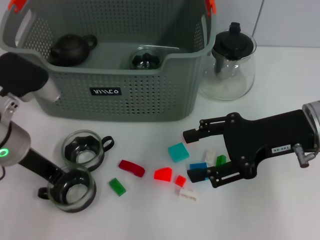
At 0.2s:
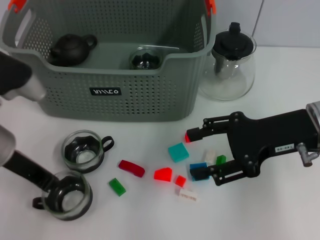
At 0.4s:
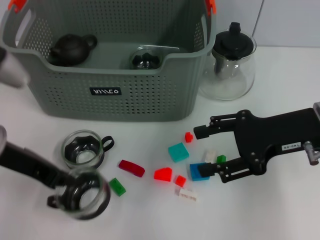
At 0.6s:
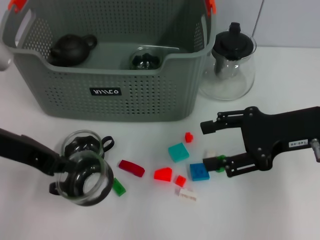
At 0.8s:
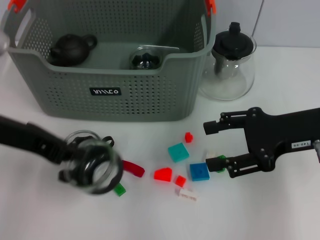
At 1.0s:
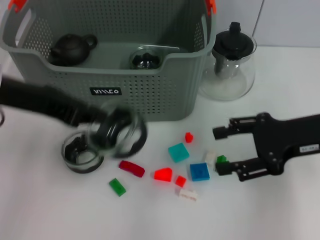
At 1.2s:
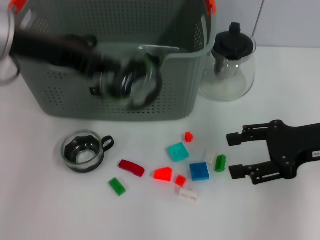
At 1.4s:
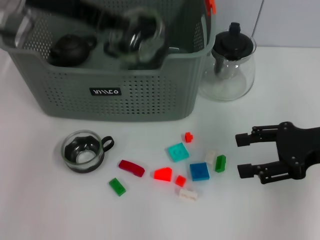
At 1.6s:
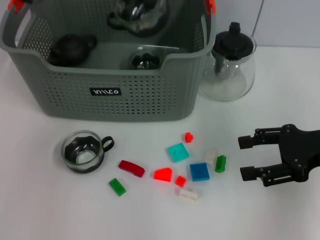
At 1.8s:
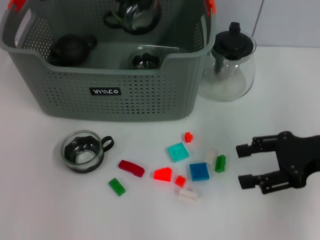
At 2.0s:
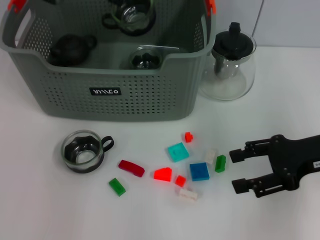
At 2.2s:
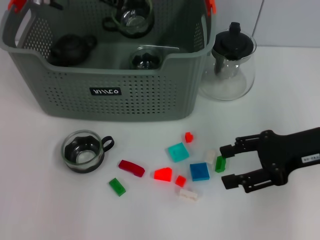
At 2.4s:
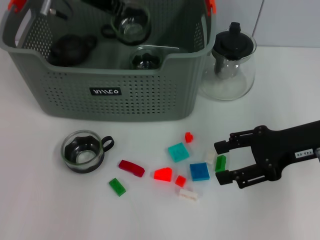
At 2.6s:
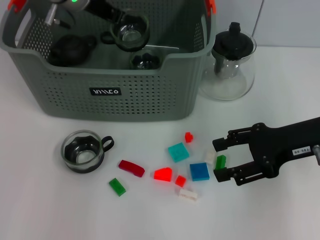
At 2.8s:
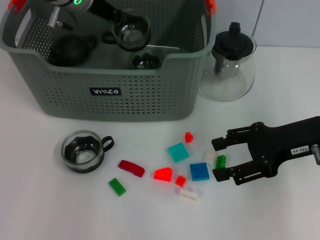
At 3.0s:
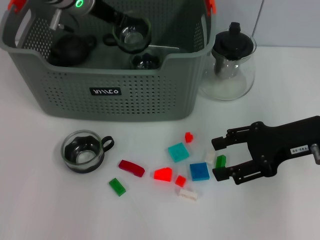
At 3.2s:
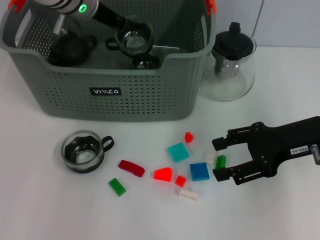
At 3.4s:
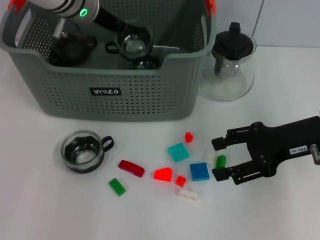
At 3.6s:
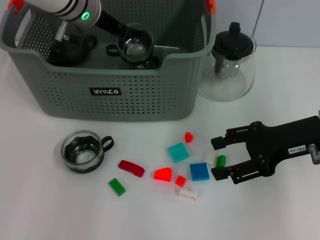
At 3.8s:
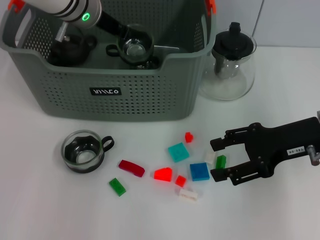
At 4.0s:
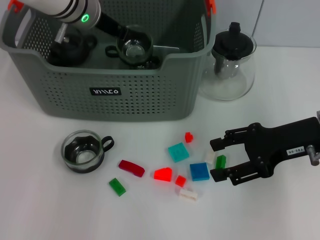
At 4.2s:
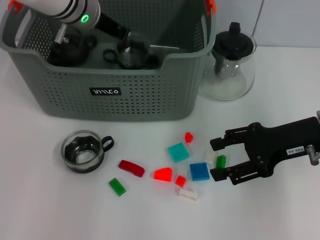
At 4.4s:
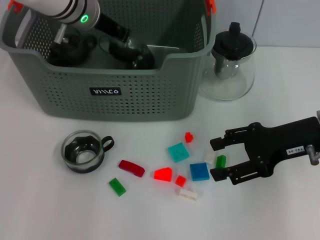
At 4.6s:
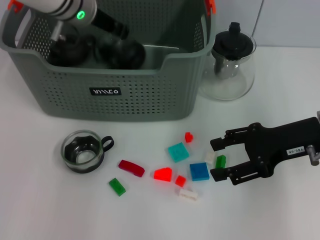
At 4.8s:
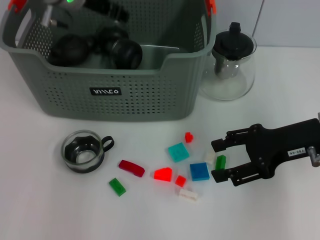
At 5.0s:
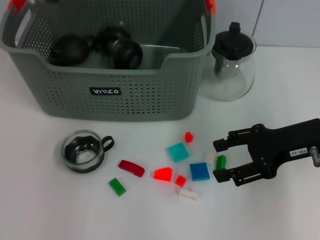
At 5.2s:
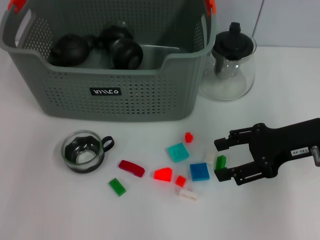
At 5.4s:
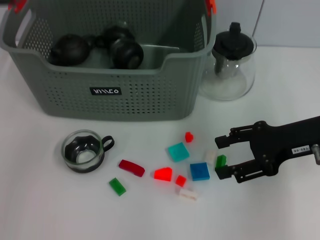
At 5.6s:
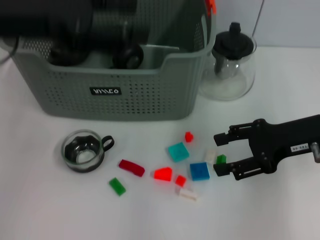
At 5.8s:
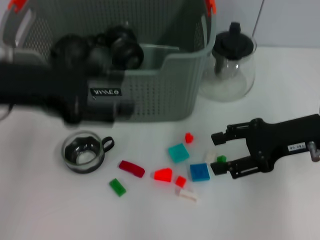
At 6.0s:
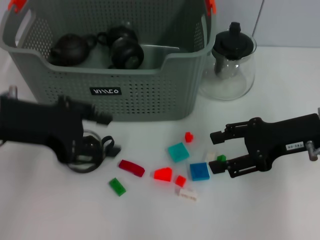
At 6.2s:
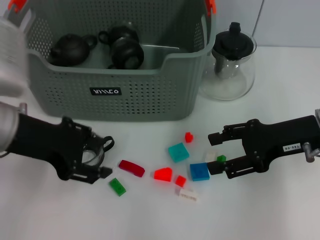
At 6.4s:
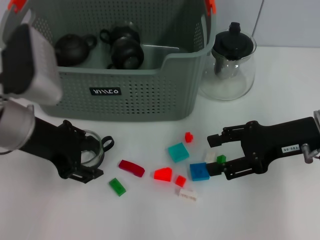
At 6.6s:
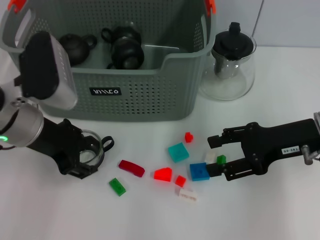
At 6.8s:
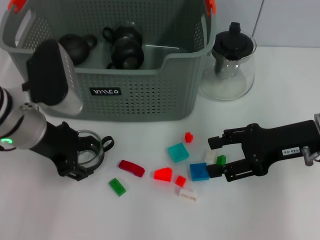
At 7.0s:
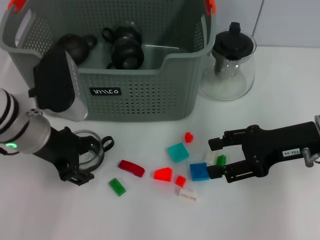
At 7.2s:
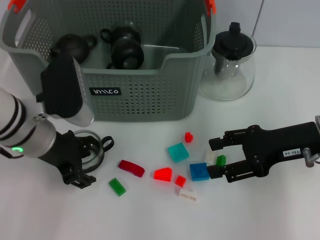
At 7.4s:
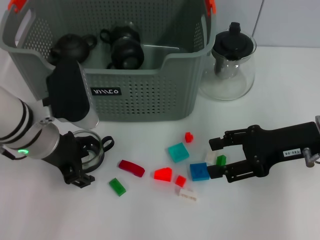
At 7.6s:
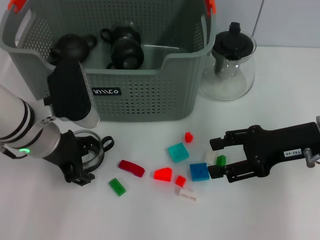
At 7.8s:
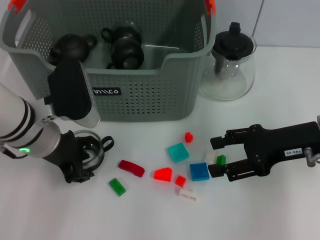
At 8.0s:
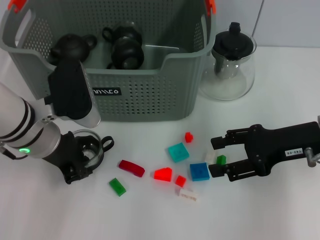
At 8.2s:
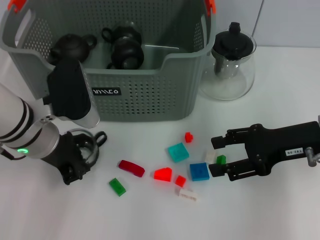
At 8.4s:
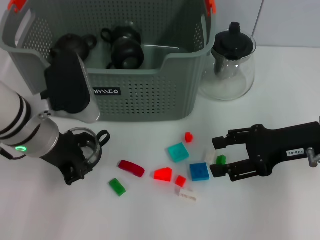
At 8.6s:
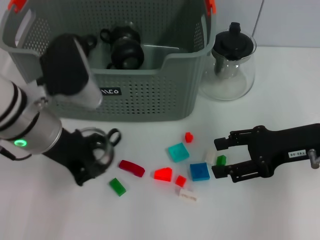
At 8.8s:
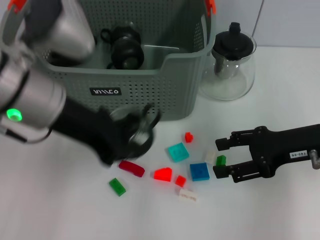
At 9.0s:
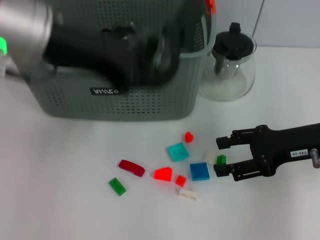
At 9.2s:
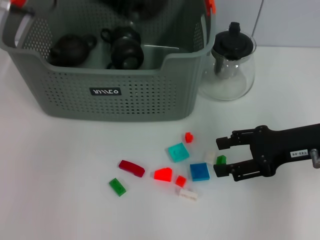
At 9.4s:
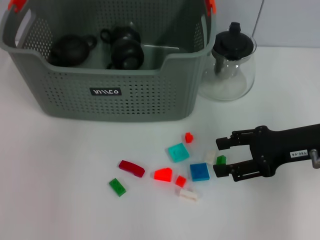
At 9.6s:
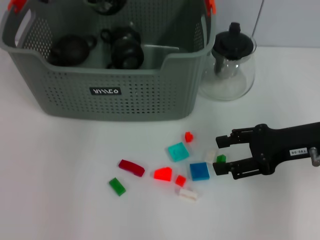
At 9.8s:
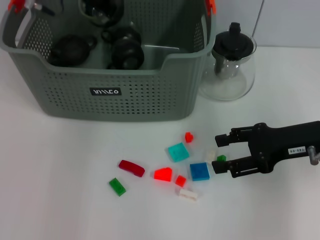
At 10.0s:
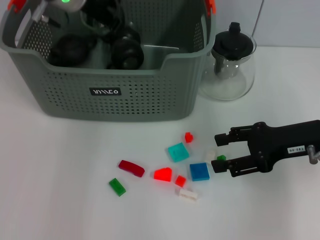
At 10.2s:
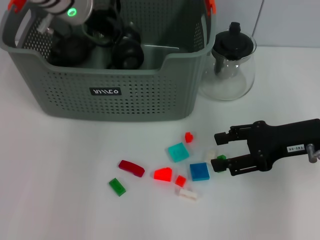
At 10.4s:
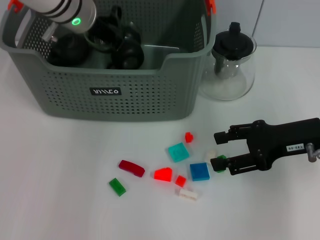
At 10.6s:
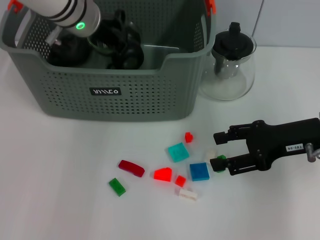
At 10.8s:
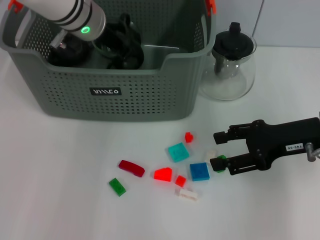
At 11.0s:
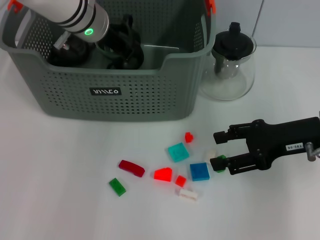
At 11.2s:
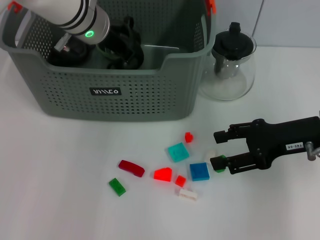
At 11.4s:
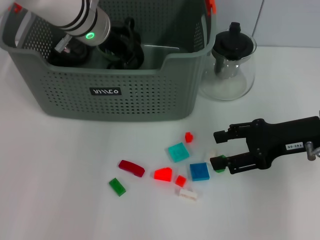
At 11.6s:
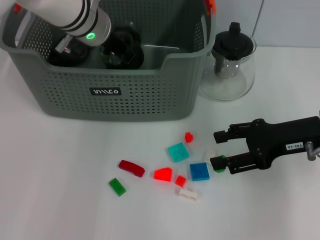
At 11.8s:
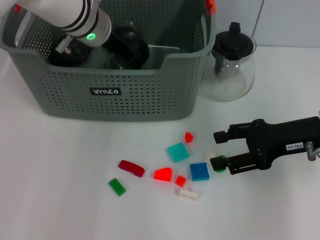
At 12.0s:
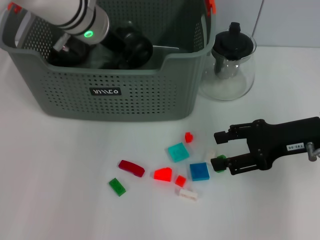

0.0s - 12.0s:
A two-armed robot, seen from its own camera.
Task of the whole recording: pick up the teacup on the table and place it into the storage bin, pick up the block on the table and place it into the storage bin.
Step, 0.0s - 4.4s: Place the cup in the storage box with left gripper.
Step, 4.8s - 8.2s: Grasp the cup with left gripper.
Step, 8.4s - 11.8s: Place the cup in the storage box with left gripper.
0.0s - 1.6s: The right gripper heads to the right, covering some 10 cm; the left gripper travels upward and forward by about 20 cm.
1.6s - 3.0s: The left gripper heads downward and forward, covering some 10 cm.
3.0s - 4.4s: There are only small adjustments of the grippers.
4.4s - 6.0s: The left gripper is displaced backward and to the left by approximately 20 cm, and opens up.
6.0s - 7.6s: The left gripper heads downward and to the right, covering approximately 10 cm.
7.6s - 9.0s: The left gripper heads upward, covering some 15 cm, and closes.
9.0s - 10.4s: The left gripper is displaced forward and downward by about 15 cm.
10.4s - 12.0s: The left gripper opens its fingers.

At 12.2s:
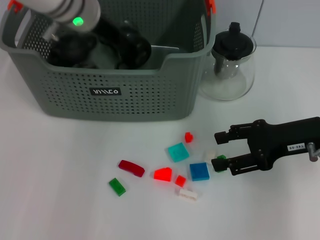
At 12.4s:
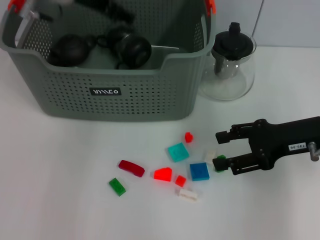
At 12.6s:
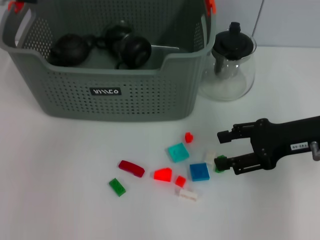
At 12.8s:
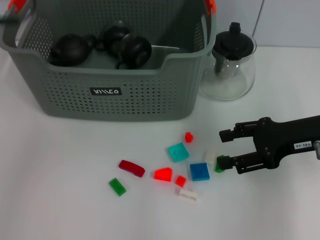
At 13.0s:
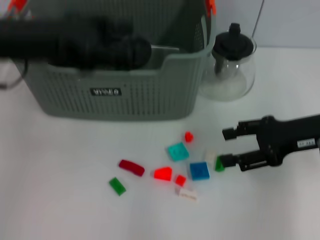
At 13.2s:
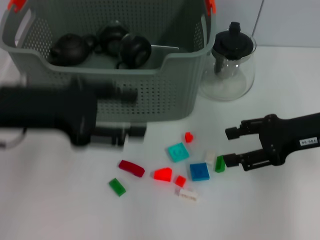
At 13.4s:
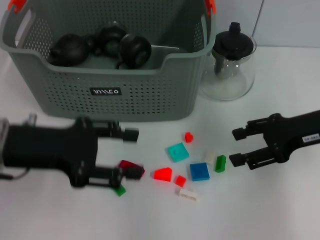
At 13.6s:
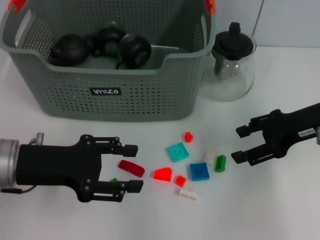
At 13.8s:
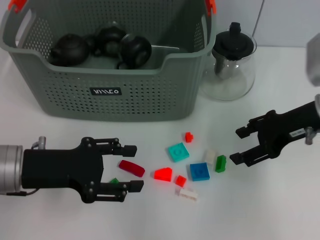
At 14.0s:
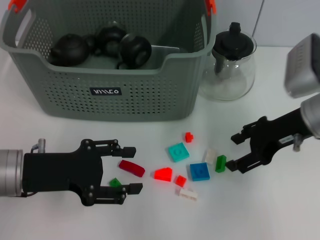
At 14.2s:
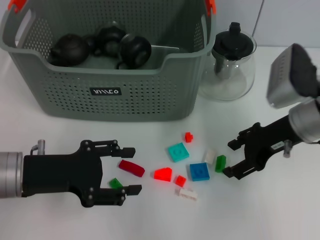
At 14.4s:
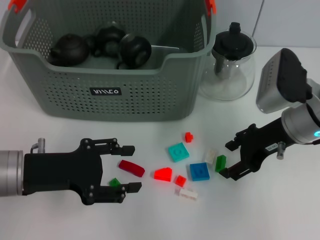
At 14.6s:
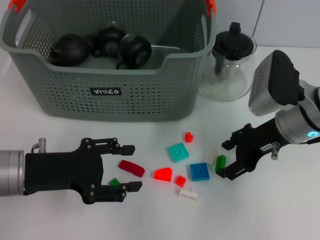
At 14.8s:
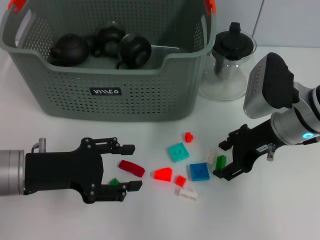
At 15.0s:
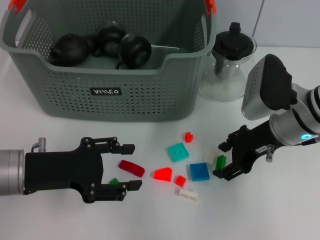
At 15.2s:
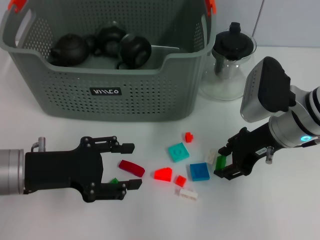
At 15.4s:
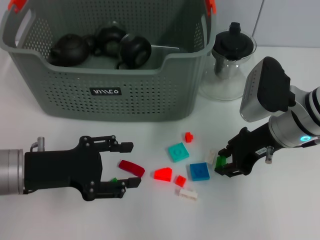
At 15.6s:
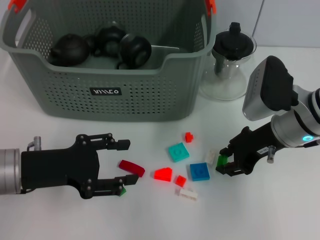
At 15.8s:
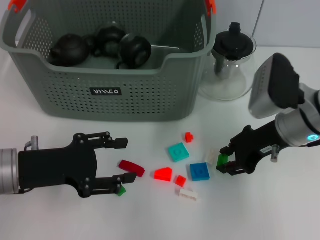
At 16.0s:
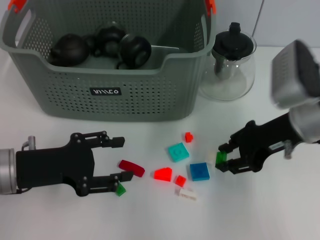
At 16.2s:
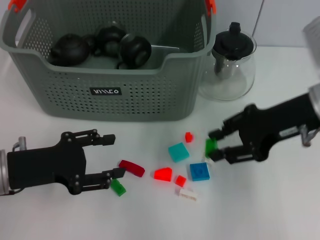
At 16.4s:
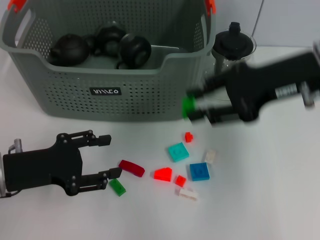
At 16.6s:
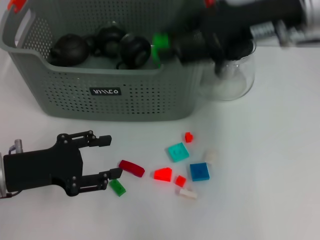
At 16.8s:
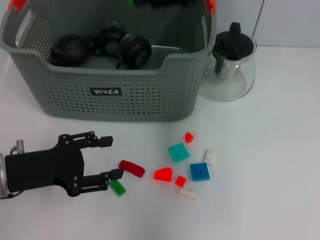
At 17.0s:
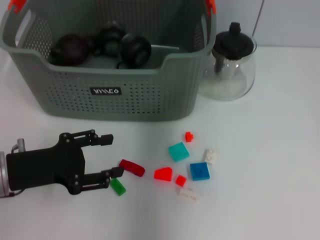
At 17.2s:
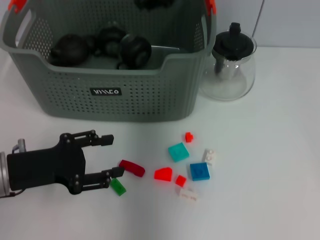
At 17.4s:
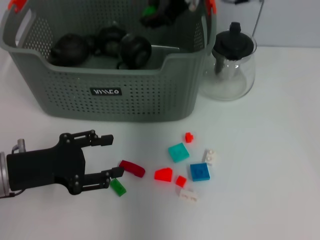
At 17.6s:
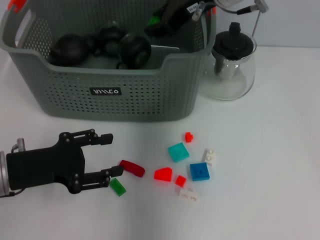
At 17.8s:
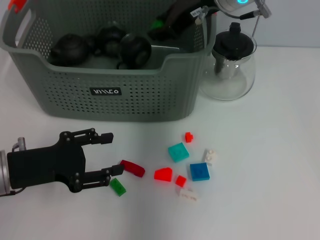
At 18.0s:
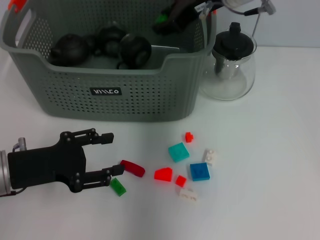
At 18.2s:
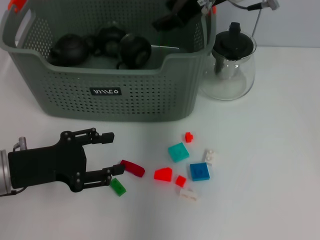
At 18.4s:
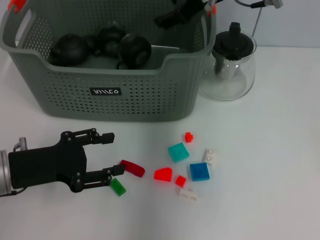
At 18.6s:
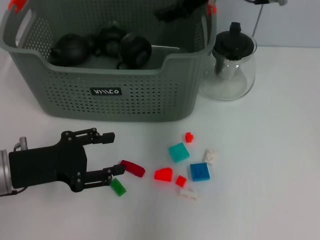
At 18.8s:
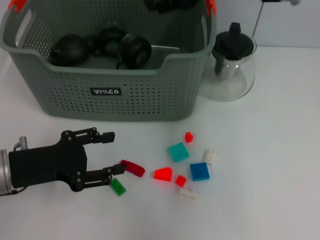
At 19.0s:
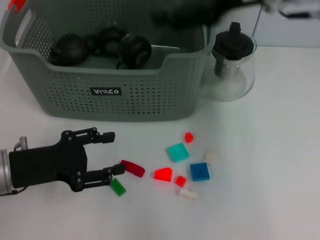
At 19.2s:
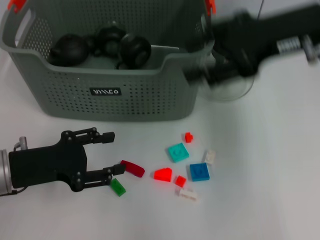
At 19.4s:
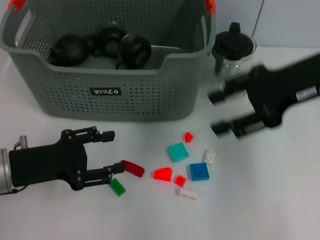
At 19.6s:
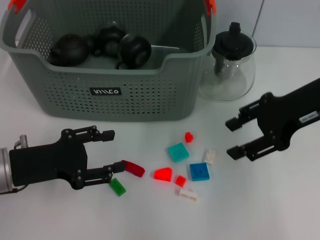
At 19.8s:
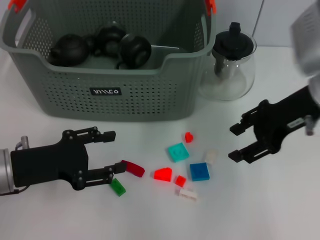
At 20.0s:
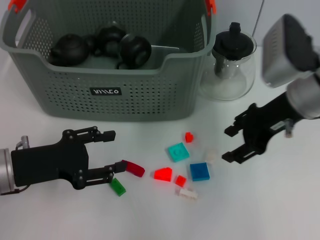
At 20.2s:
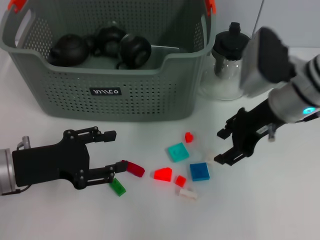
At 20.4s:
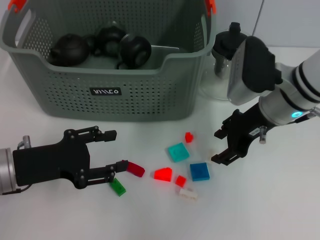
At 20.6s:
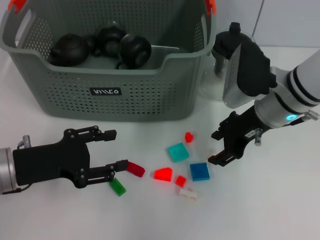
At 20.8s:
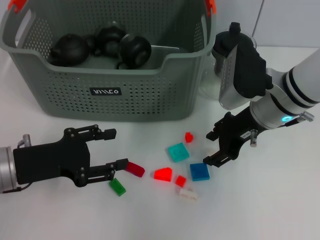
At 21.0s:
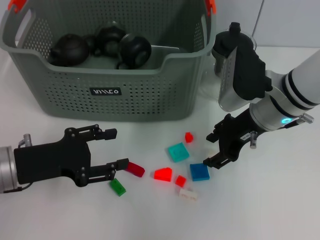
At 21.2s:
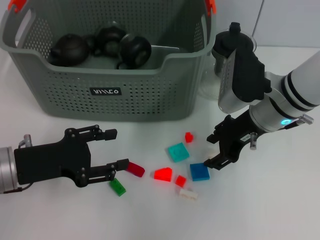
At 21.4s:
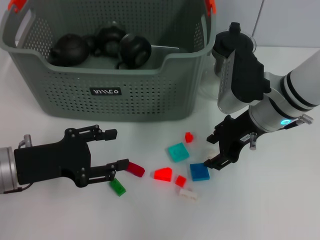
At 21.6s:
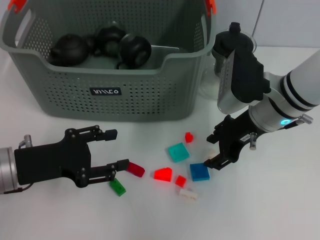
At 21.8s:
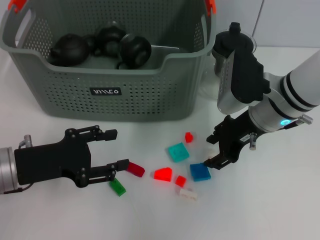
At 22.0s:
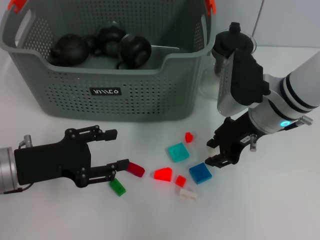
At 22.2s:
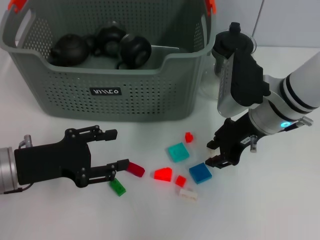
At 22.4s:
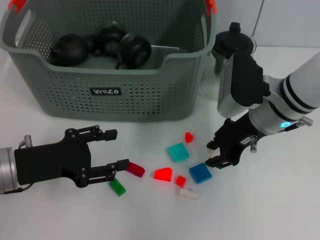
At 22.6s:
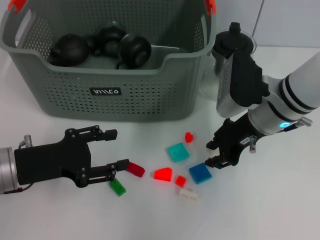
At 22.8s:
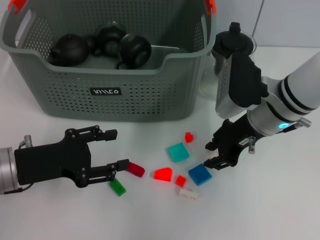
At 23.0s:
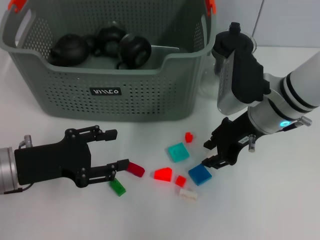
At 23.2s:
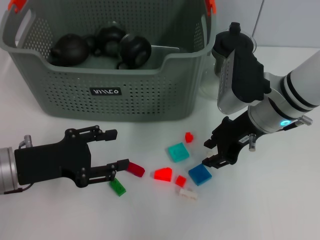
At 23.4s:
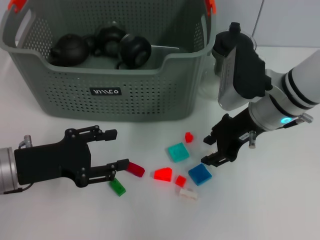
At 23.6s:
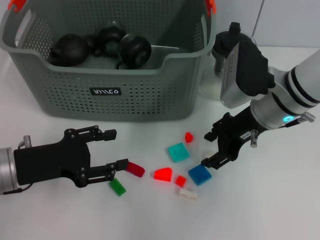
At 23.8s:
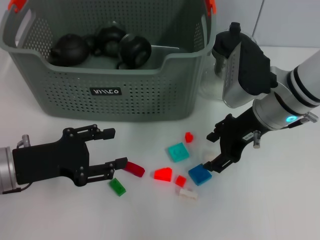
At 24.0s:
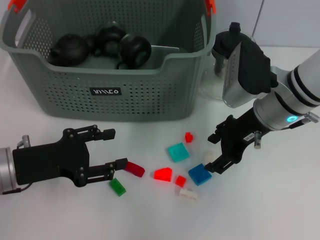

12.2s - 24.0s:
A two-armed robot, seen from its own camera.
Task of the whole recording: pick up the teacup on the table and place it into the storage bin, pick up the block on the table and place it into the storage bin.
Step, 12.2s - 15.4s: Grasp the green block with right gripper.
Step, 15.8s - 18.2s: Place the green block in the storage box with right gripper.
12.2s - 13.6s: The left gripper travels backward, to the left and downward by roughly 25 cm.
13.6s - 15.2s: The right gripper travels to the left by some 5 cm.
15.2s - 16.6s: The right gripper goes some 15 cm upward.
16.6s - 18.2s: The right gripper travels forward and to the left by roughly 10 cm.
18.2s - 19.6s: The right gripper heads to the right and backward, covering about 15 cm.
19.6s - 21.0s: The right gripper goes roughly 10 cm downward and to the left.
21.0s - 22.6s: Neither gripper changes place.
22.6s - 24.0s: The right gripper opens up.
